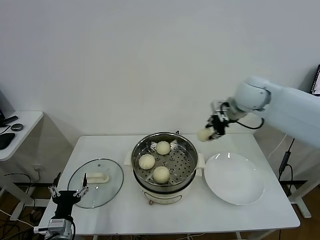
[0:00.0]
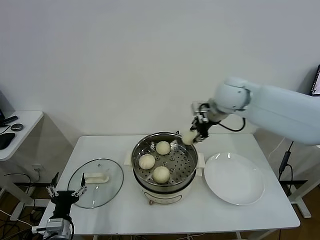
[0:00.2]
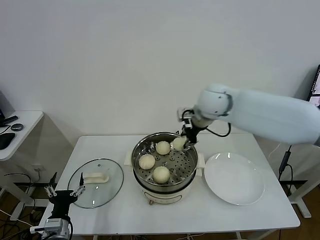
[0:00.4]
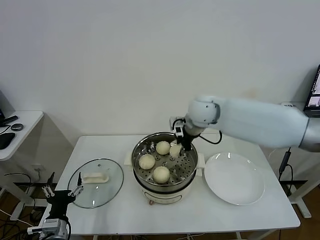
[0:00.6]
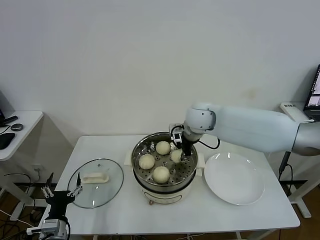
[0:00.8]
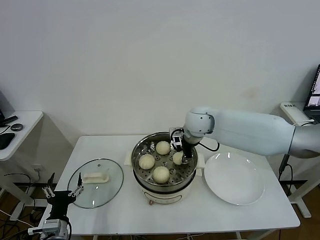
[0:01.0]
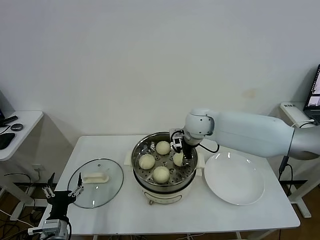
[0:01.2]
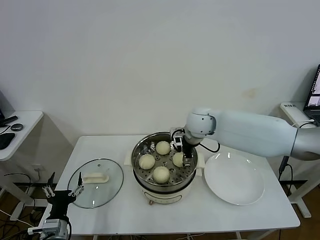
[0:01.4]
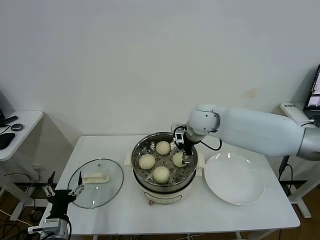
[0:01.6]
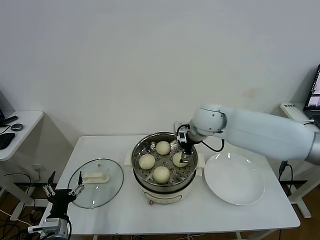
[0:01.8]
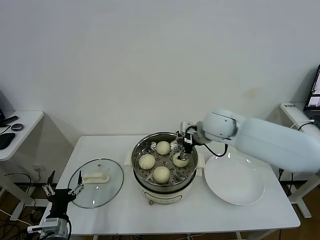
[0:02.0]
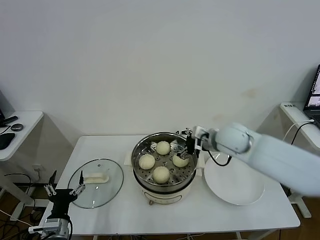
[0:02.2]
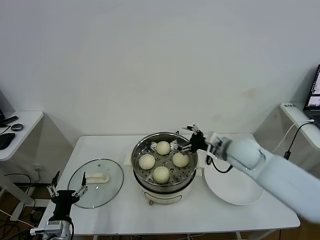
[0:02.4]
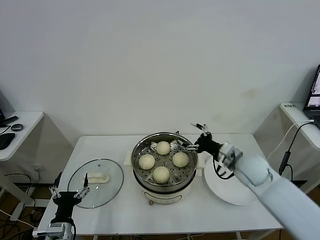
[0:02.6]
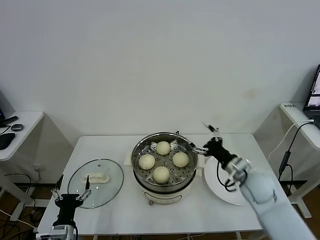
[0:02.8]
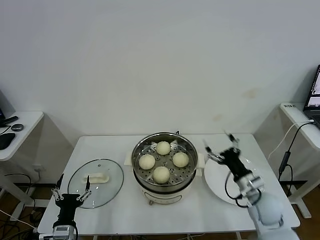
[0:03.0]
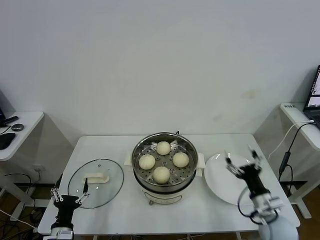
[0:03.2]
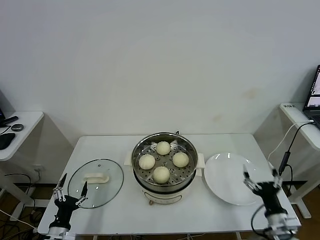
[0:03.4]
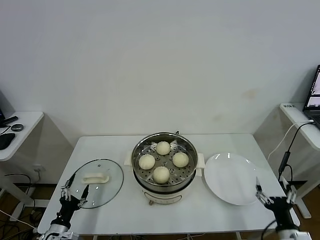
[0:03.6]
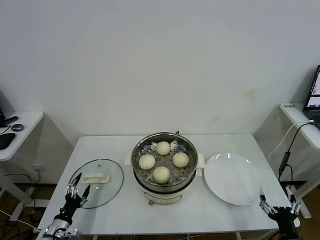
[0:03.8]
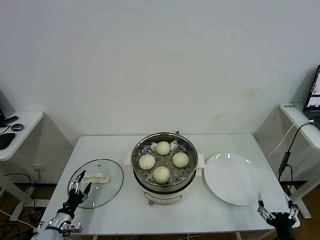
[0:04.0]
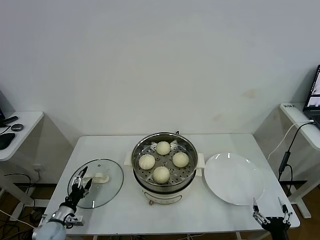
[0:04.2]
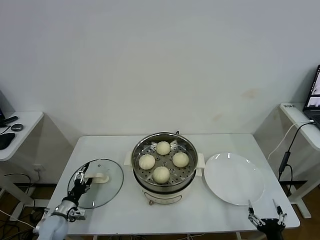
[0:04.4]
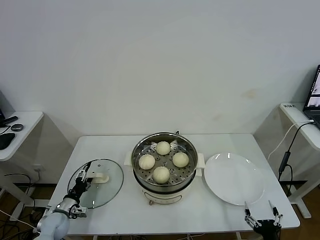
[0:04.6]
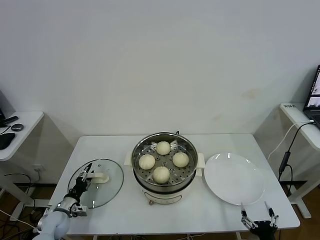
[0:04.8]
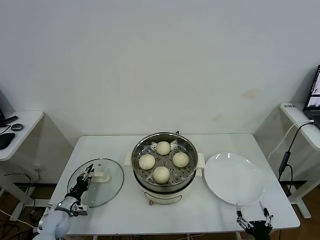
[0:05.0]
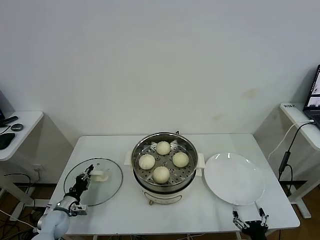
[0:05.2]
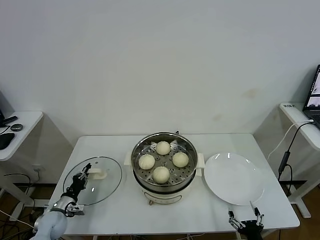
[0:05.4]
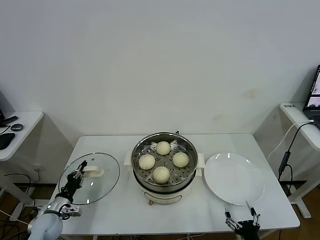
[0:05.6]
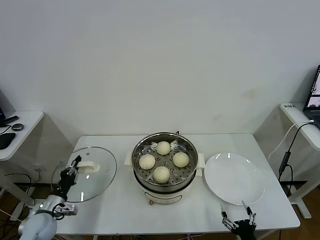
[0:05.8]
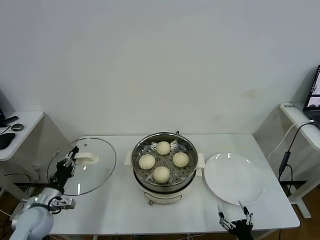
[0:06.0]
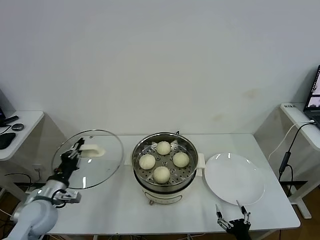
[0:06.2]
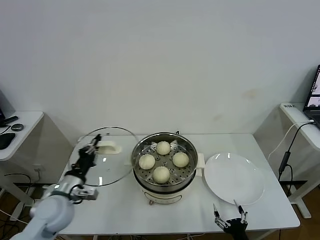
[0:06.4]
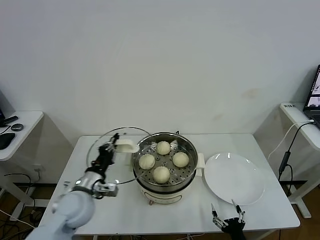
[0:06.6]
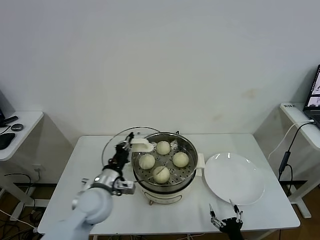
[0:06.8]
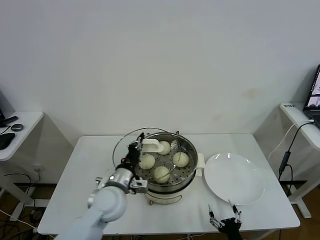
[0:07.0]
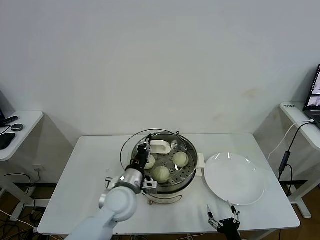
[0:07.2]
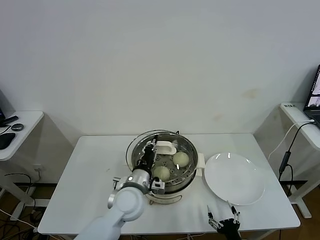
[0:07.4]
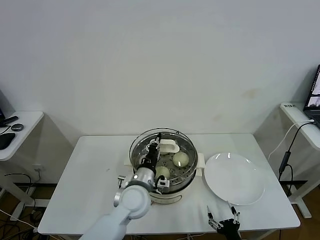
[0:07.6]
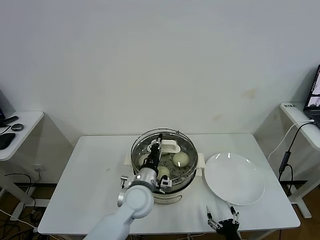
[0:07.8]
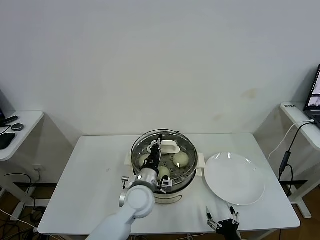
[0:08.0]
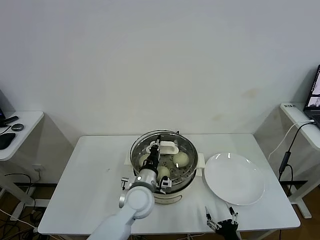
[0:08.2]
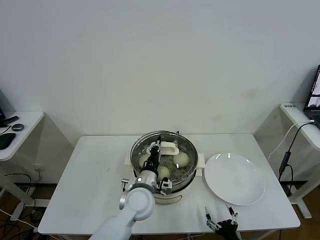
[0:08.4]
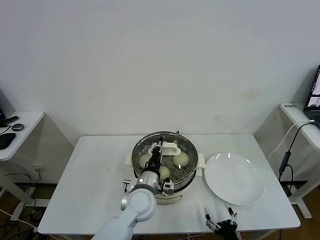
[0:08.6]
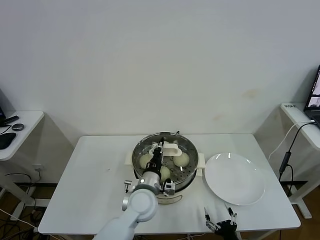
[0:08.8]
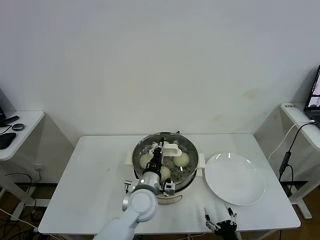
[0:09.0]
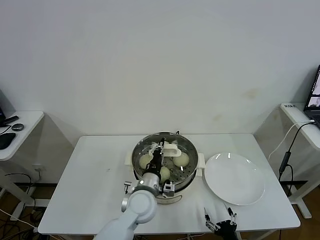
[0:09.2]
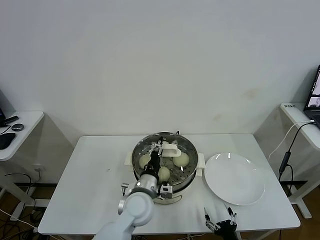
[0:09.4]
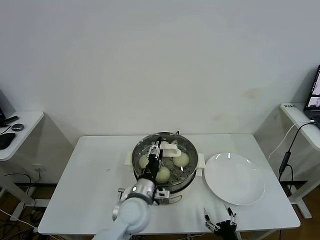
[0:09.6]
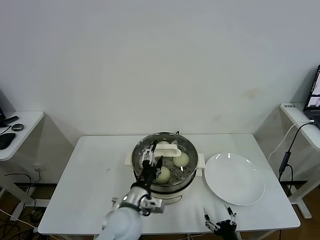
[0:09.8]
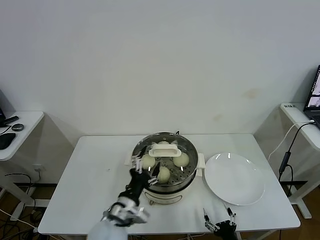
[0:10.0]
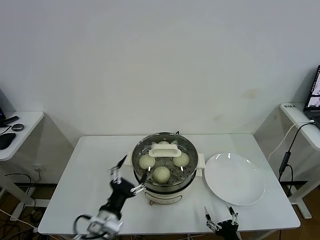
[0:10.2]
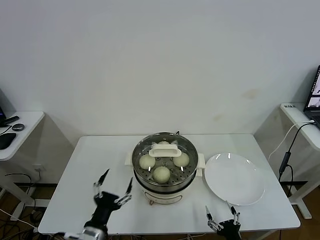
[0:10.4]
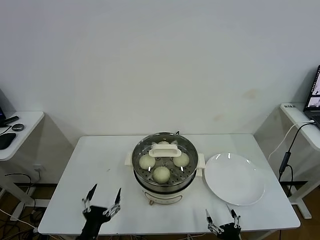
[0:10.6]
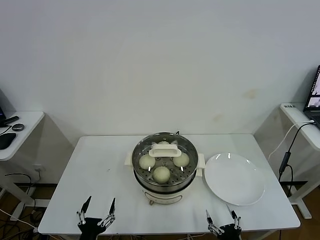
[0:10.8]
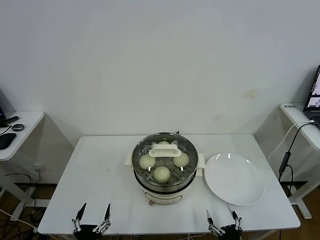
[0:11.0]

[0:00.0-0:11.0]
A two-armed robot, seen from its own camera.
Task of the whole recording: take steamed baozi put them in steamer.
Step, 0:00.0 to 0:01.8: Place the baozi on the steamer with right gripper.
Step, 0:02.0 to 0:05.4: Grasp the pot lid with left gripper.
Step, 0:05.6 to 0:09.8: Place the pot lid on the steamer with left gripper.
0:00.0 to 0:01.6: The right gripper heads to the left and downward, covering approximately 15 cm, and opens its fingers.
0:01.6 to 0:03.2: The right gripper is displaced backward, downward and to the right by roughly 40 cm.
0:03.2 to 0:04.8: The left gripper travels forward, to the left and downward by some 15 cm, while the right gripper is displaced backward and downward by some 20 cm.
0:04.8 to 0:06.2: The right gripper ends up approximately 5 cm from where it was; the left gripper moves upward, some 20 cm, and closes.
0:06.2 to 0:07.8: The left gripper heads to the right, covering roughly 30 cm.
0:07.8 to 0:09.4: The grippers move only a little.
0:09.4 to 0:11.0: The left gripper heads backward and to the left, covering approximately 30 cm, and opens up.
